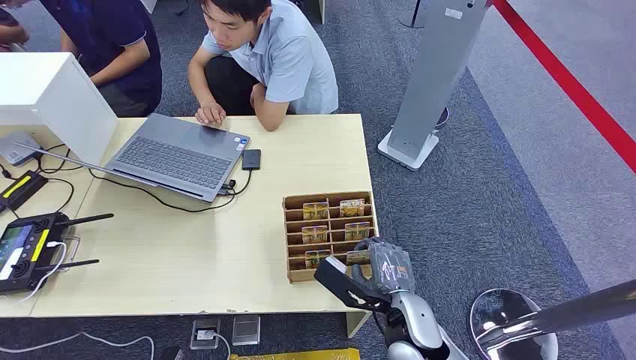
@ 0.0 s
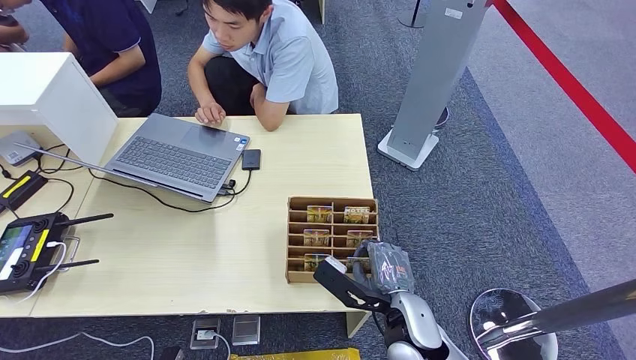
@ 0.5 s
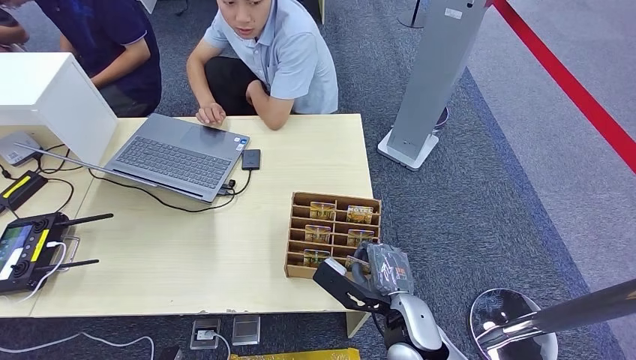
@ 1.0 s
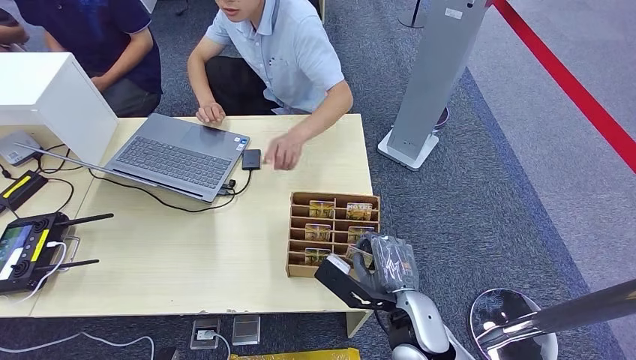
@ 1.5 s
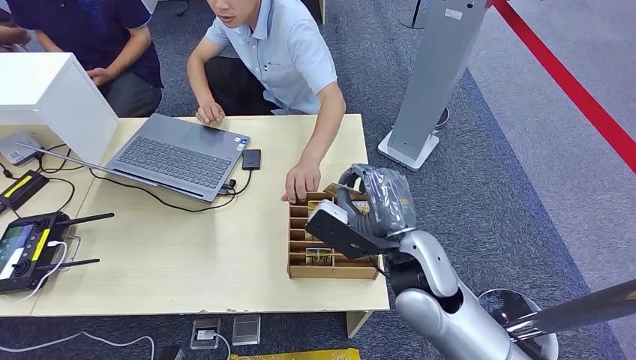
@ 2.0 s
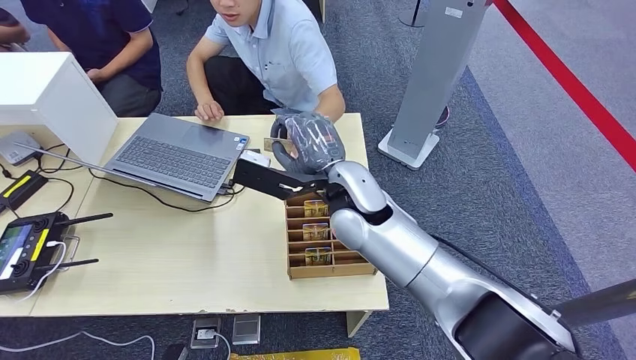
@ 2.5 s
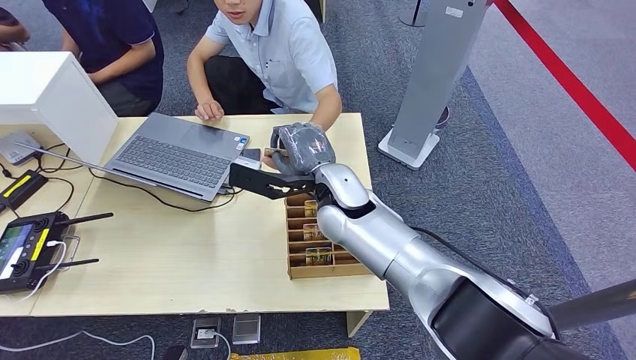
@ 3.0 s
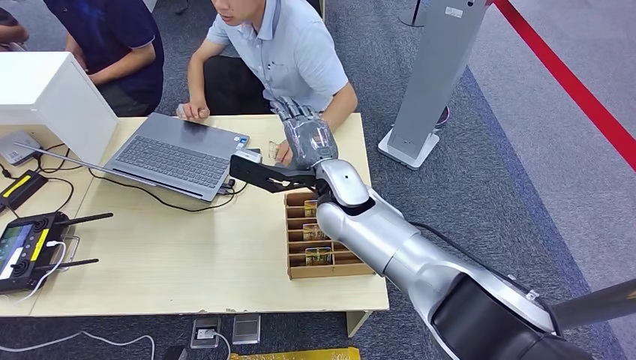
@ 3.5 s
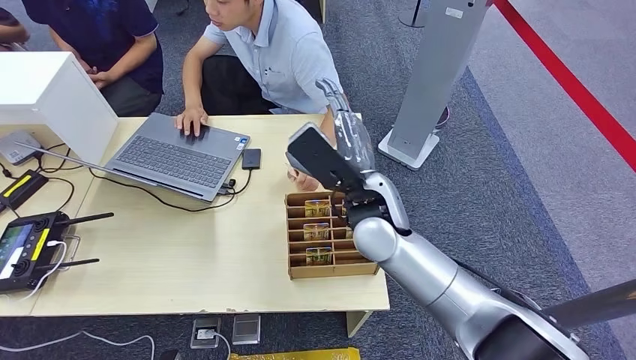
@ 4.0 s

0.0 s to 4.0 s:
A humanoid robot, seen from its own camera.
Step, 0.0 to 1.5 s: Pick up the key card from the card box.
Step, 2.5 to 4.0 s: Hand the key card to the target.
2.0 to 4.0 s: The right hand moves forward and to the left, roughly 10 cm.
